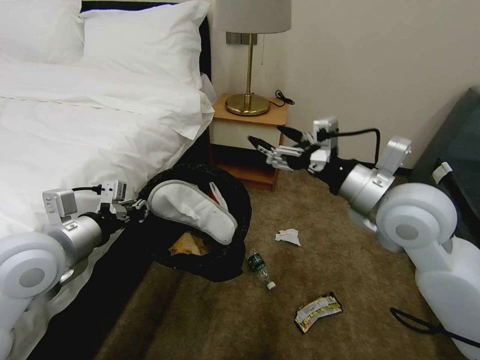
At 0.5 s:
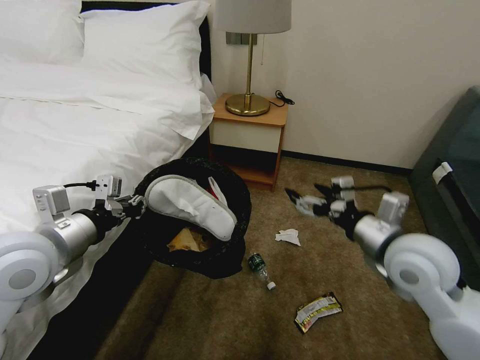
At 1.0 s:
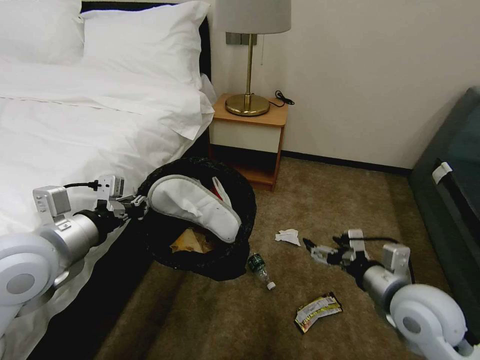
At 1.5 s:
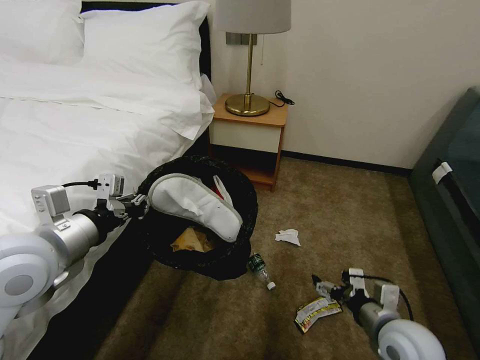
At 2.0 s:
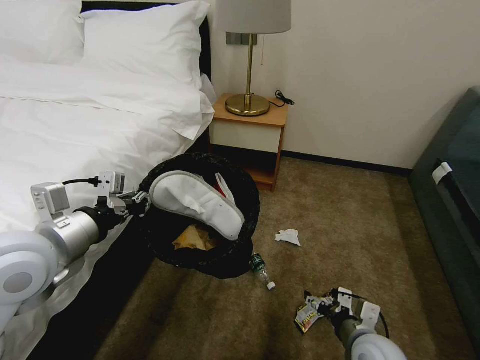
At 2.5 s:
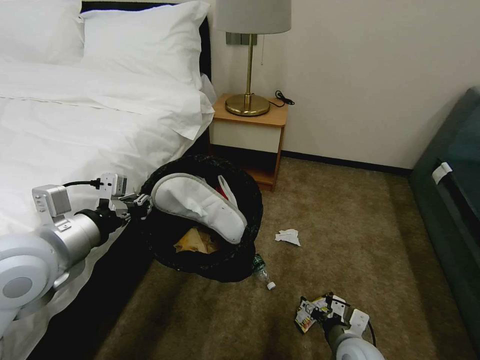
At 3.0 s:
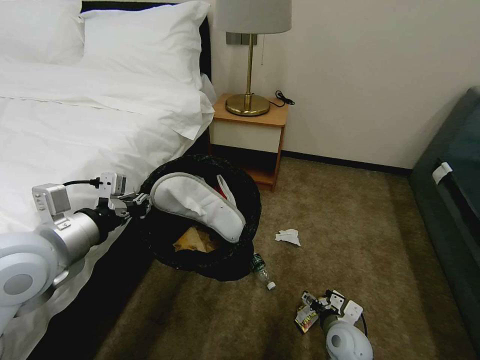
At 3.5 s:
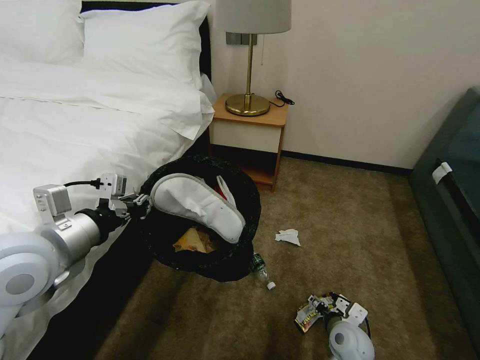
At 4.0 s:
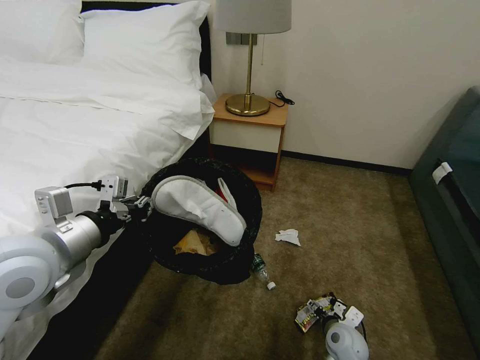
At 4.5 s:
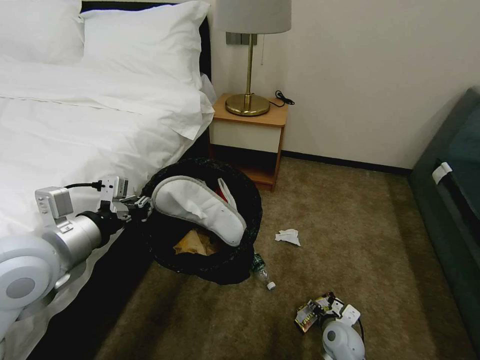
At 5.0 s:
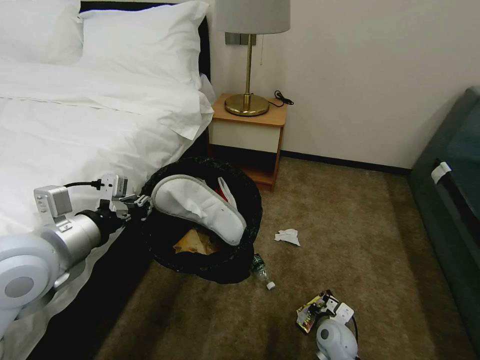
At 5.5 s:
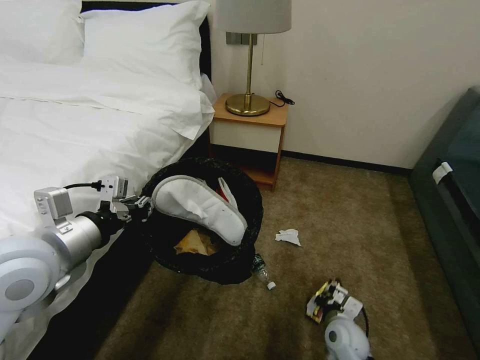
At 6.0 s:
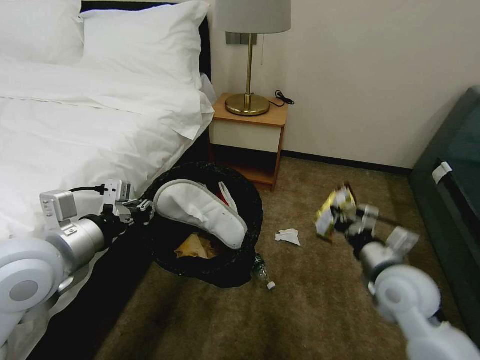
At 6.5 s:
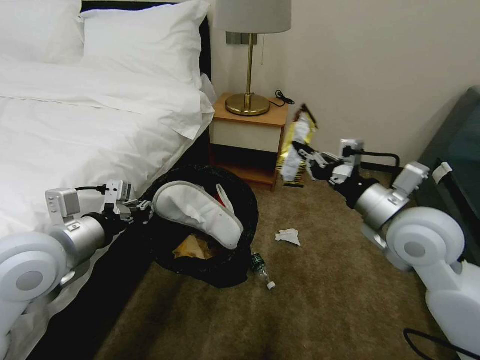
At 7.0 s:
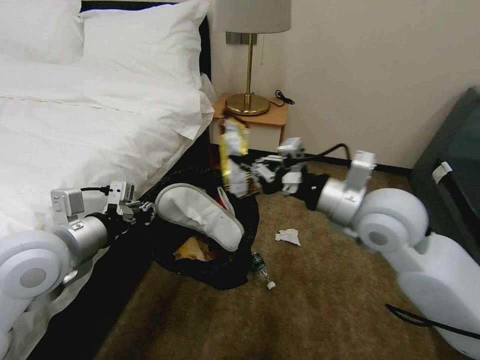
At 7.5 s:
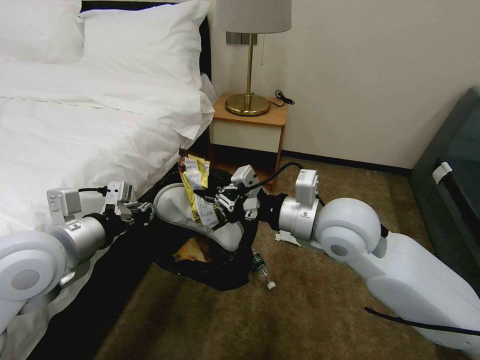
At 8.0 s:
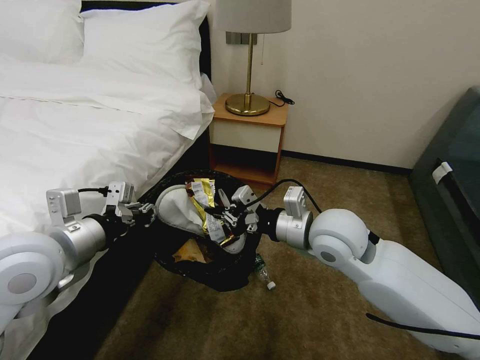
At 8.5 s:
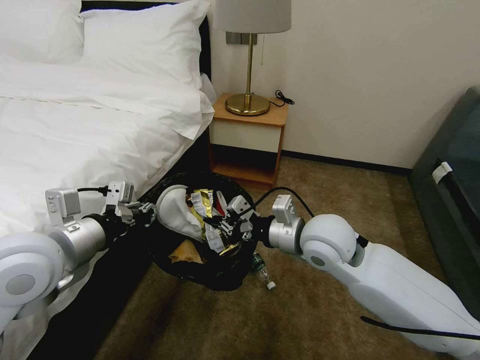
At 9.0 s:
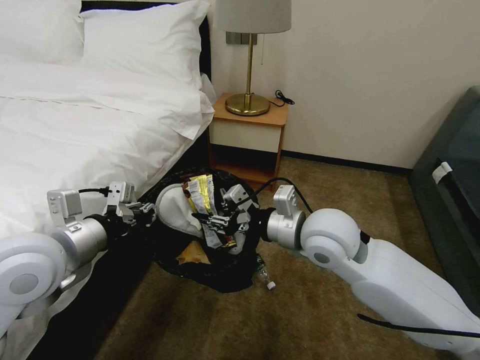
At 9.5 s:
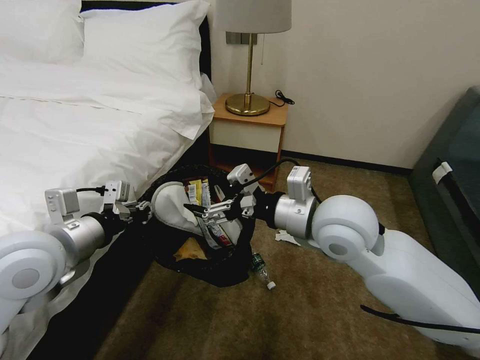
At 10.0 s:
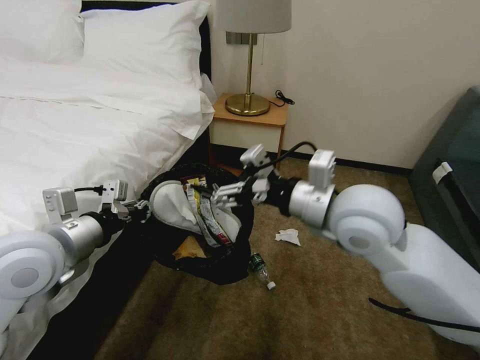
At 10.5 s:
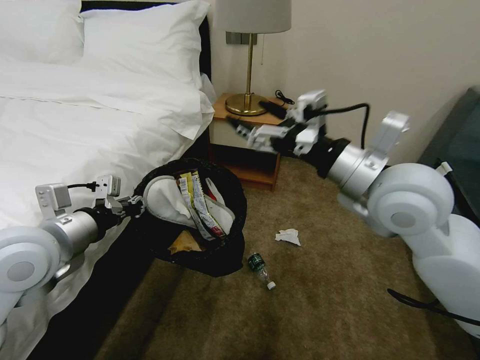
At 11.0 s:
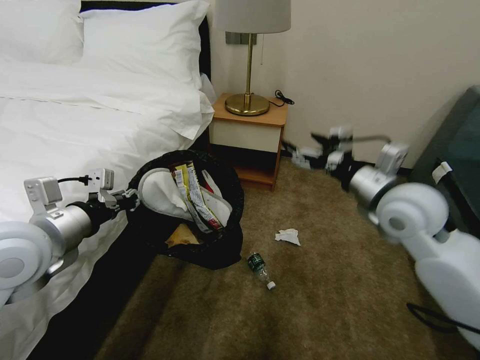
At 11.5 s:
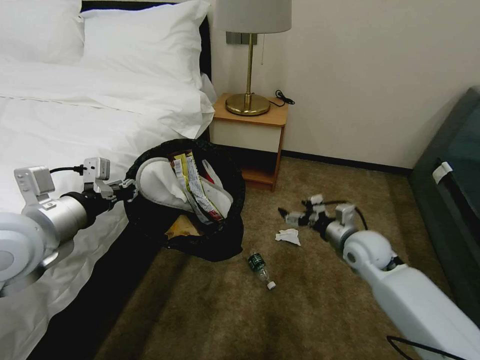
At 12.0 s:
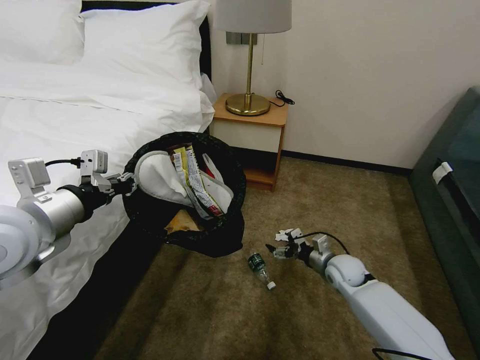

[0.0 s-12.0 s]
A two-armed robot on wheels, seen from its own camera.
Task of the whole recording: Pick up the trash bin, then pick up the garbage on the floor and place it into the trash bin.
0.0 to 2.0 s: The right gripper moves downward and backward, about 30 cm.
2.0 to 4.0 s: The right gripper is displaced downward by roughly 15 cm.
4.0 to 6.0 s: The right gripper travels upward by about 25 cm, and closes.
6.0 to 8.0 s: The right gripper is displaced to the left, upward and forward by approximately 20 cm.
8.0 to 10.0 s: The right gripper travels upward by roughly 10 cm, and opens its fingers.
10.0 to 12.0 s: The right gripper goes some 35 cm downward.

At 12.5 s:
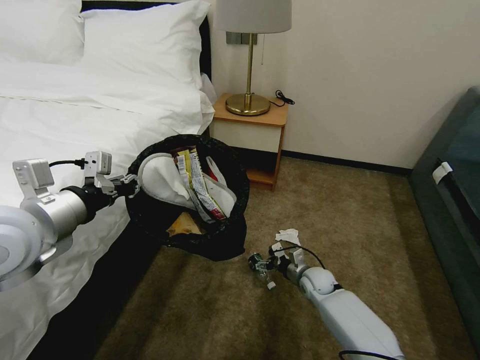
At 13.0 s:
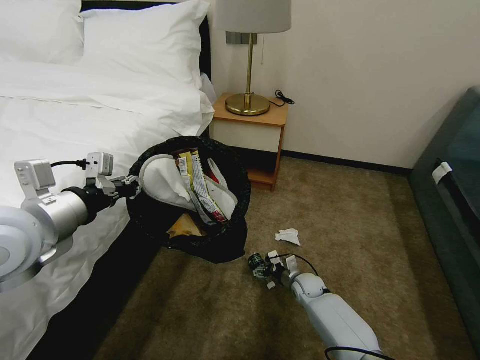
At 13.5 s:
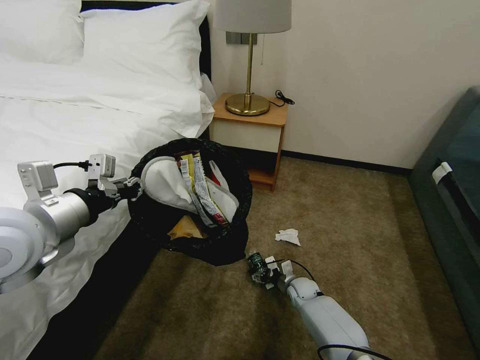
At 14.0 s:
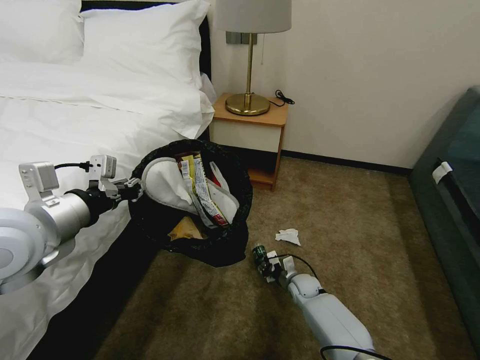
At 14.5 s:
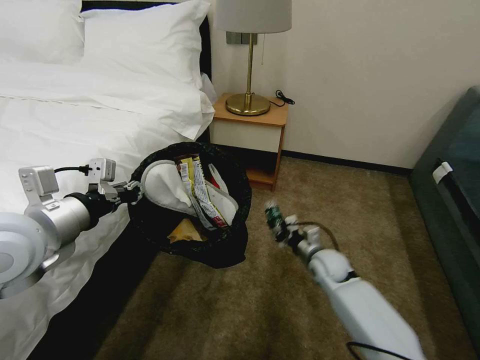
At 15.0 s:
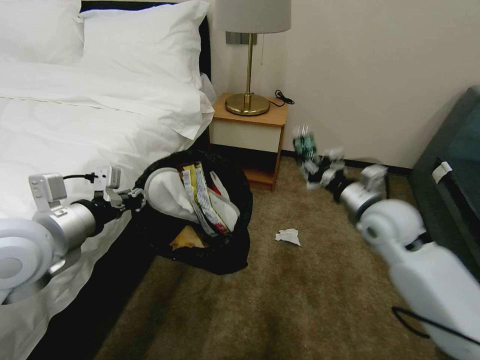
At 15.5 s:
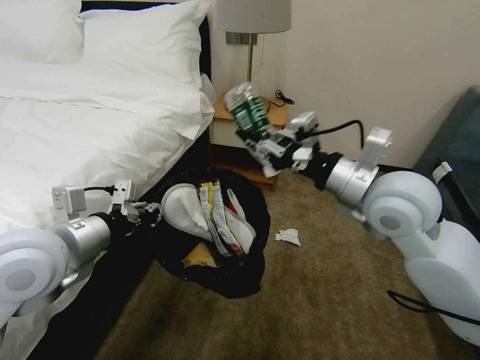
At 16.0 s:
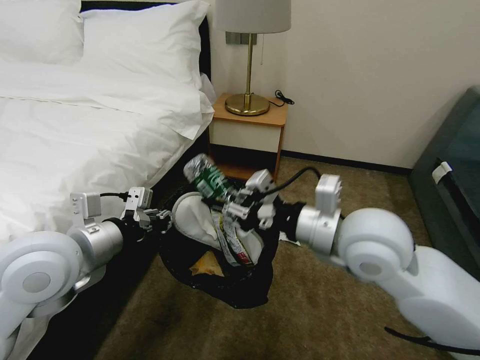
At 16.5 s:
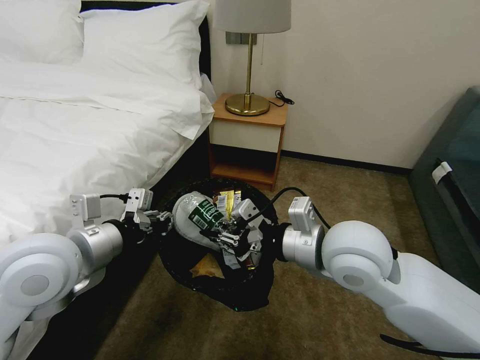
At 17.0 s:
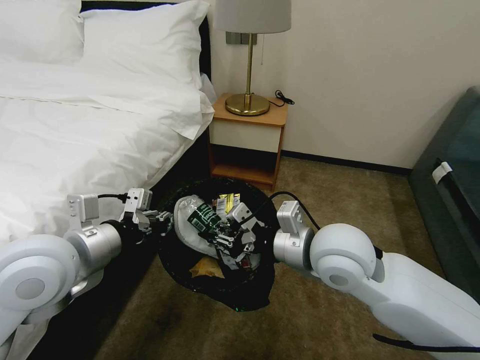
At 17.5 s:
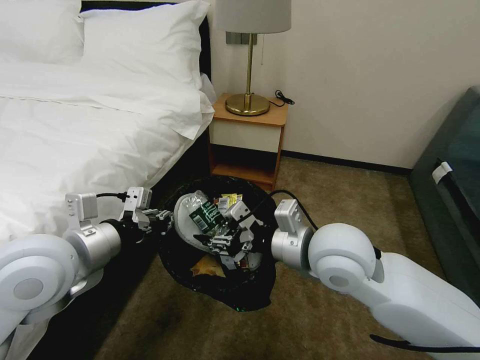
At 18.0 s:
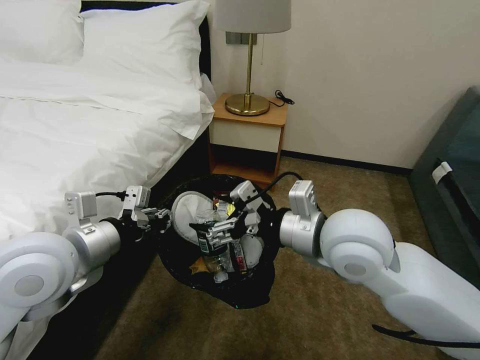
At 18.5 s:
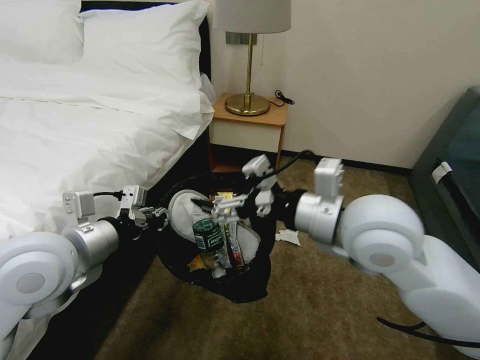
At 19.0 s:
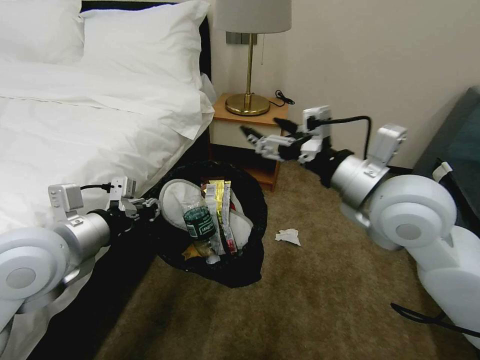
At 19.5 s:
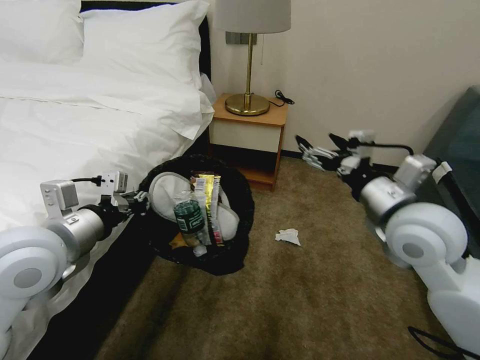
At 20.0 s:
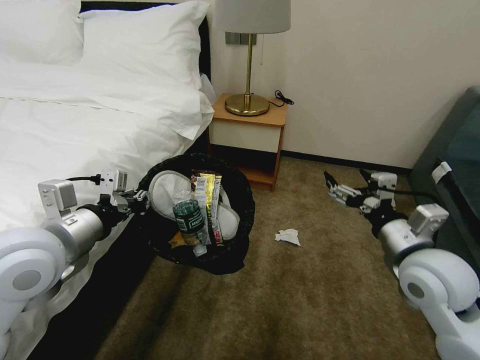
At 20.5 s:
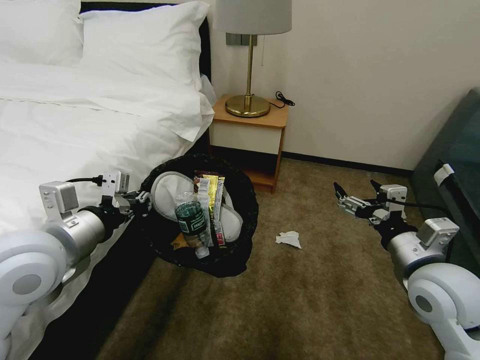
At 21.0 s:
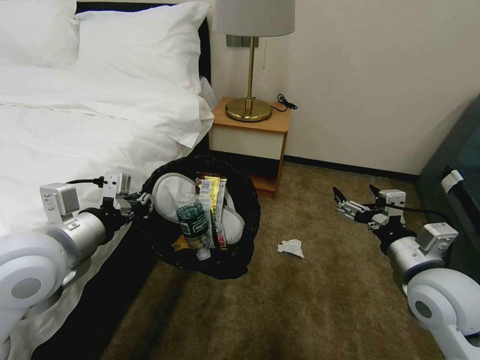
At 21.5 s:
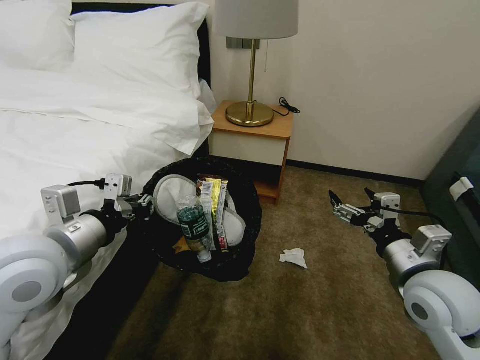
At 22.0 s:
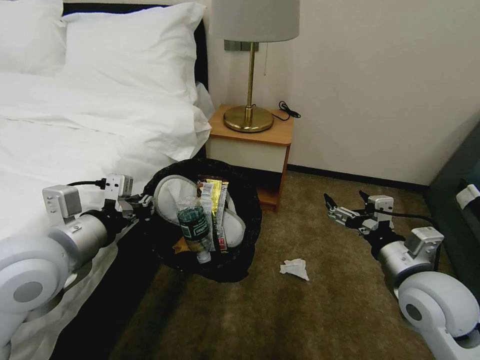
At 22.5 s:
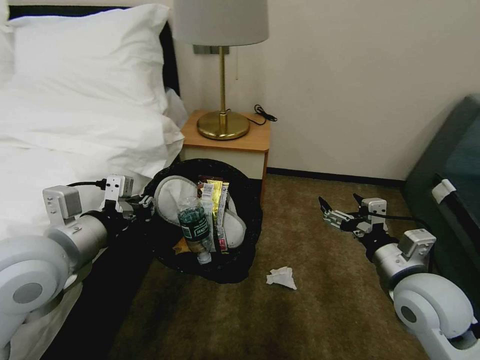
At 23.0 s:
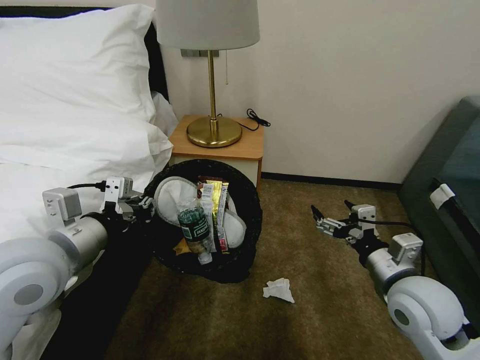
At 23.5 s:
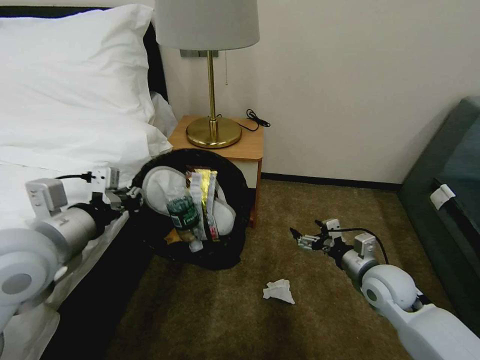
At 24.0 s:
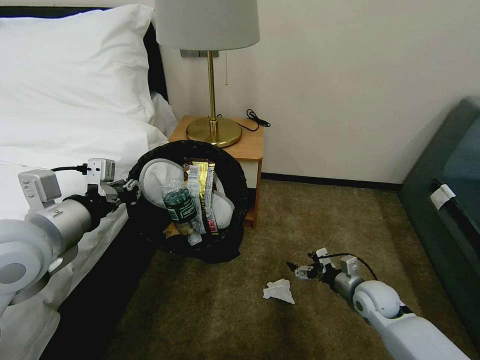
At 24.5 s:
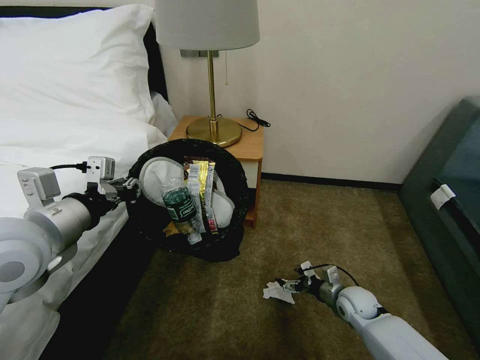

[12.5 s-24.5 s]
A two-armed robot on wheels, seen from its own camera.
Task of the whole recording: Pick up the trash bin, then pick up the garbage on the floor and place it into the trash bin.
12.5 to 14.5 s: The right gripper travels upward by roughly 10 cm, and closes.
14.5 to 16.5 s: The left gripper changes place by roughly 5 cm. Meanwhile the right gripper heads upward and backward, covering some 30 cm.
16.5 to 18.5 s: The right gripper travels upward by some 5 cm, and opens.
18.5 to 20.5 s: The right gripper goes about 20 cm to the right and downward.
22.5 to 24.5 s: The right gripper is displaced downward by some 25 cm.

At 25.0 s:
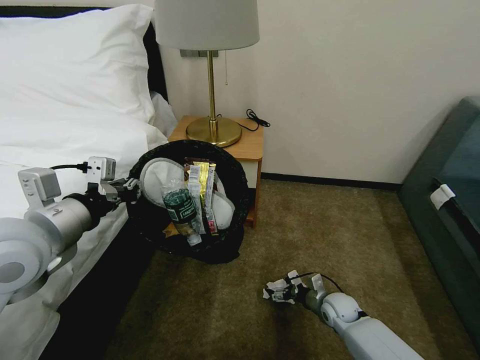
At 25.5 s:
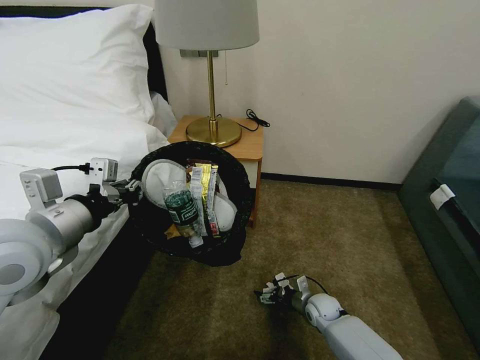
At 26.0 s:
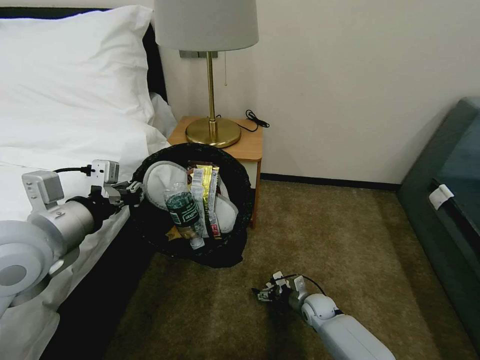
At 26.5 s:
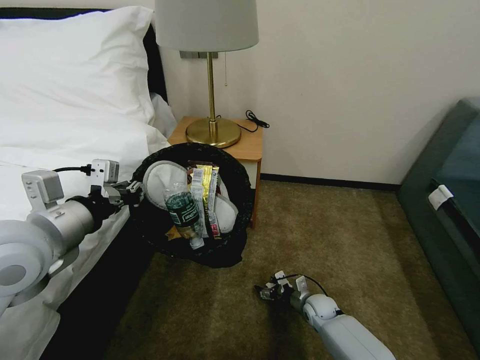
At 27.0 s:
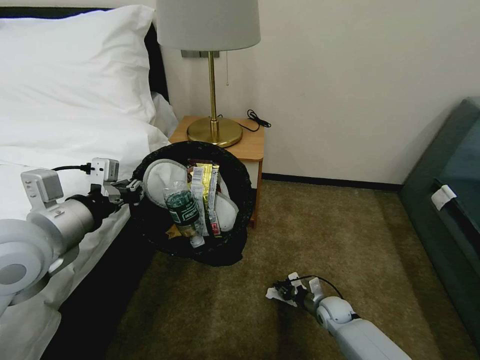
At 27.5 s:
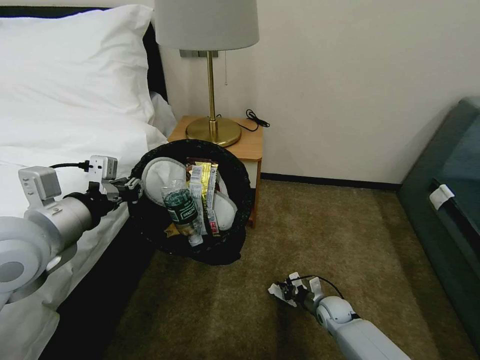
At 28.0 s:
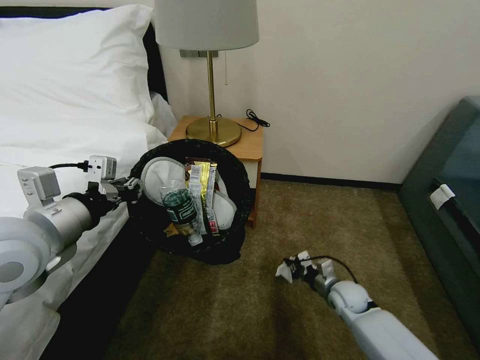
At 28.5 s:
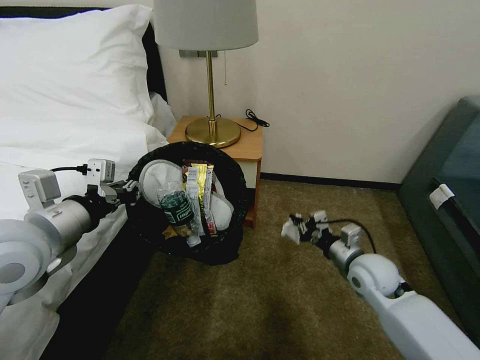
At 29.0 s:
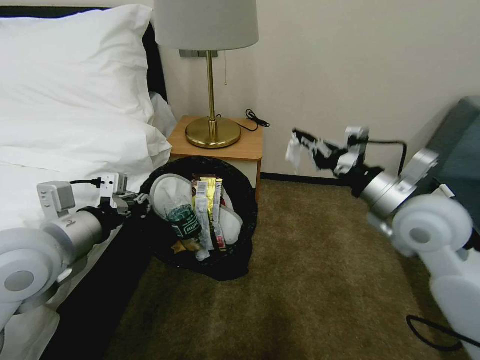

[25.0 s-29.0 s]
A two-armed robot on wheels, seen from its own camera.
Task of the whole recording: Pick up the trash bin, then pick up the garbage on the floor and place it into the trash bin.
25.0 to 27.0 s: The right gripper closes up.
27.0 to 29.0 s: The right gripper travels upward by roughly 40 cm.
